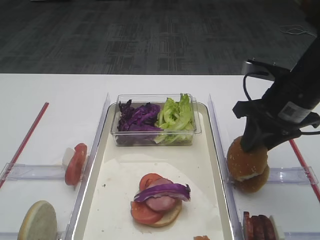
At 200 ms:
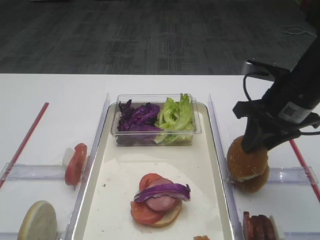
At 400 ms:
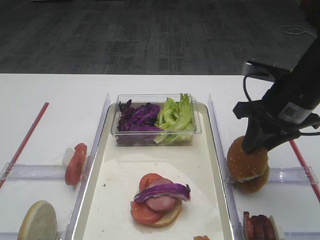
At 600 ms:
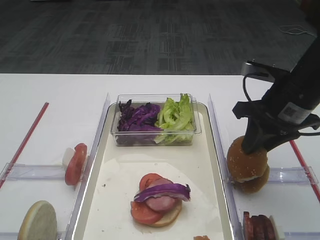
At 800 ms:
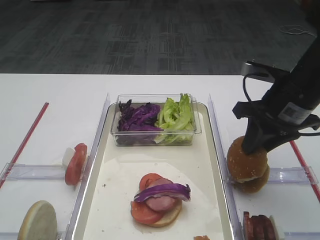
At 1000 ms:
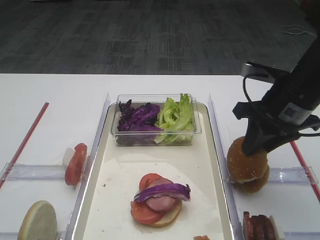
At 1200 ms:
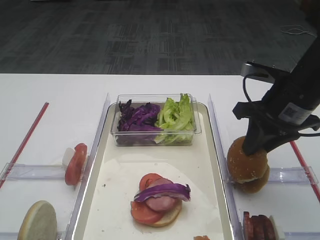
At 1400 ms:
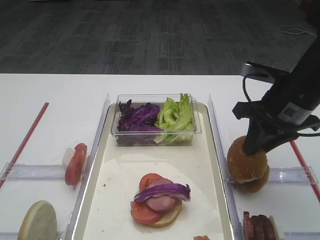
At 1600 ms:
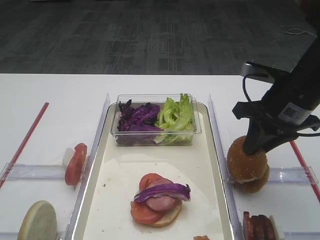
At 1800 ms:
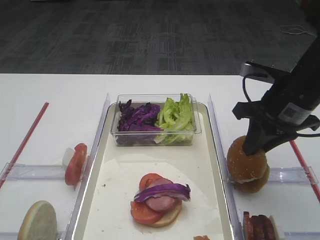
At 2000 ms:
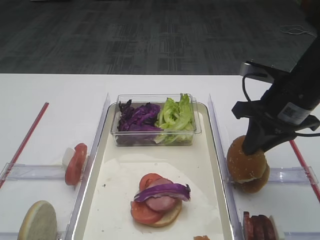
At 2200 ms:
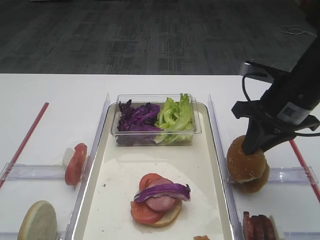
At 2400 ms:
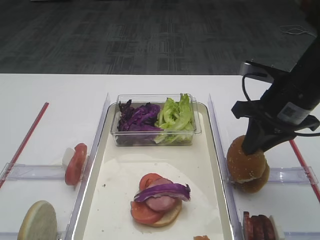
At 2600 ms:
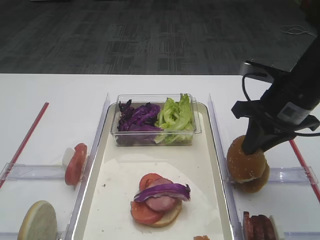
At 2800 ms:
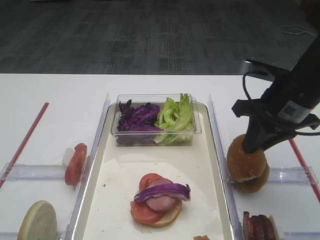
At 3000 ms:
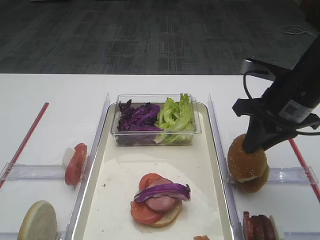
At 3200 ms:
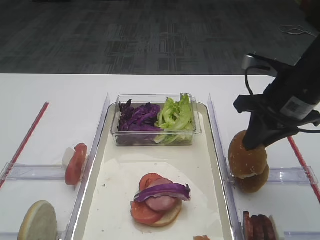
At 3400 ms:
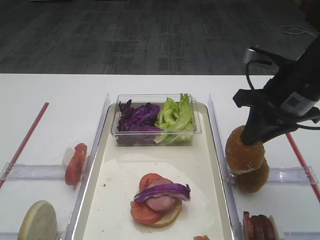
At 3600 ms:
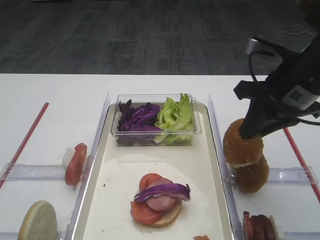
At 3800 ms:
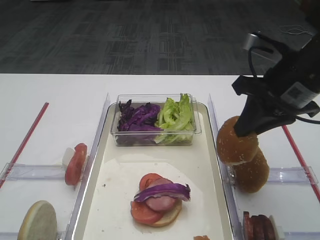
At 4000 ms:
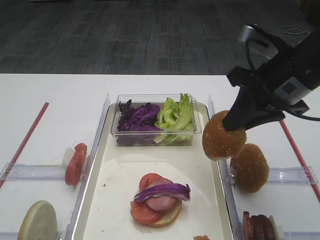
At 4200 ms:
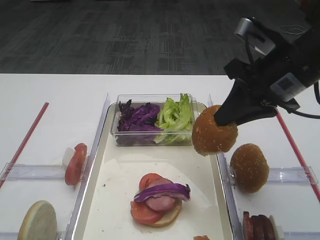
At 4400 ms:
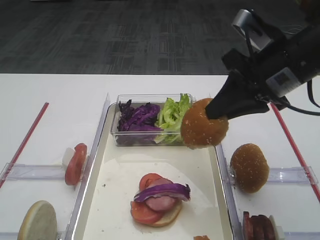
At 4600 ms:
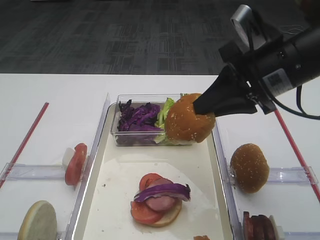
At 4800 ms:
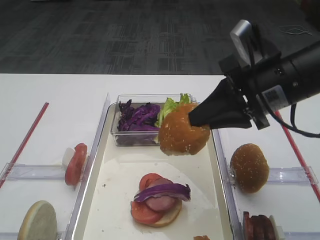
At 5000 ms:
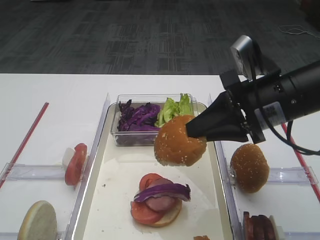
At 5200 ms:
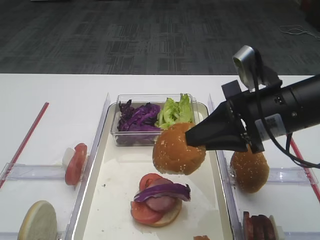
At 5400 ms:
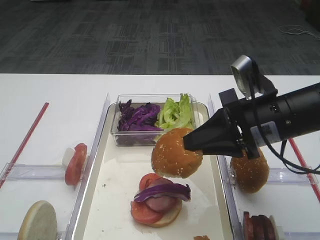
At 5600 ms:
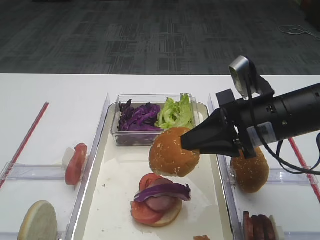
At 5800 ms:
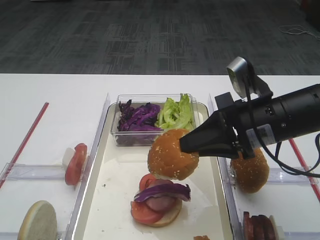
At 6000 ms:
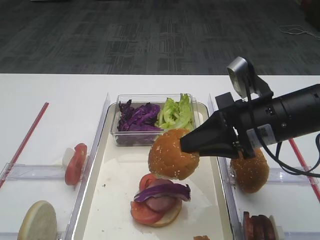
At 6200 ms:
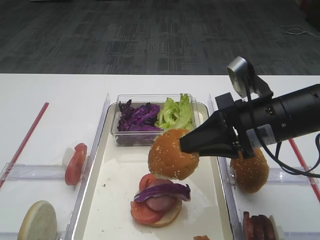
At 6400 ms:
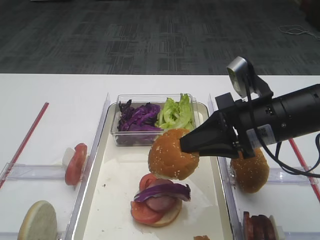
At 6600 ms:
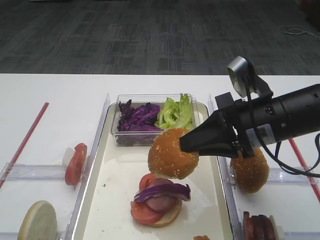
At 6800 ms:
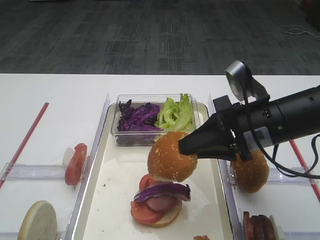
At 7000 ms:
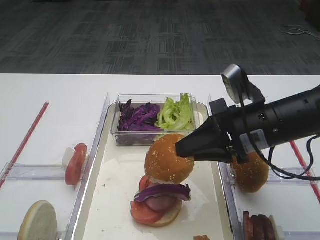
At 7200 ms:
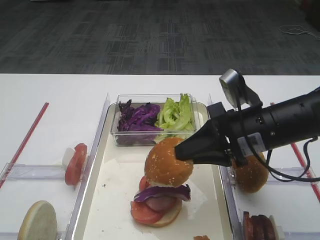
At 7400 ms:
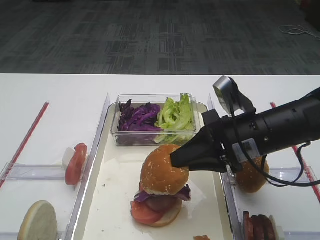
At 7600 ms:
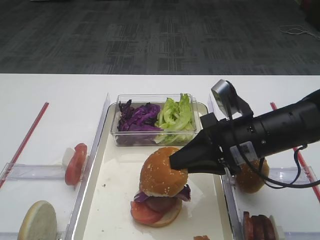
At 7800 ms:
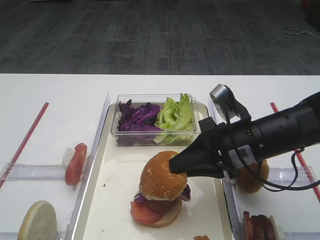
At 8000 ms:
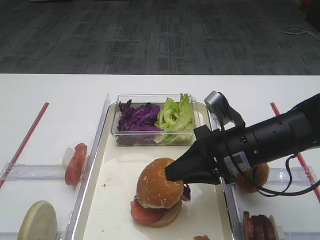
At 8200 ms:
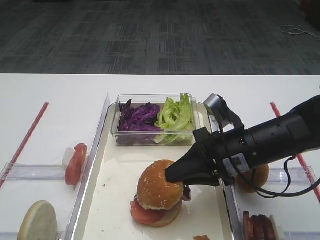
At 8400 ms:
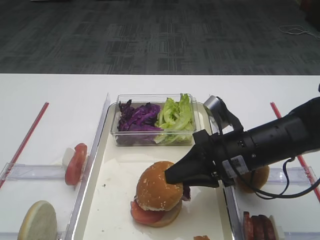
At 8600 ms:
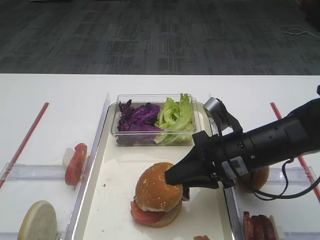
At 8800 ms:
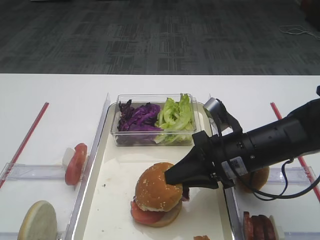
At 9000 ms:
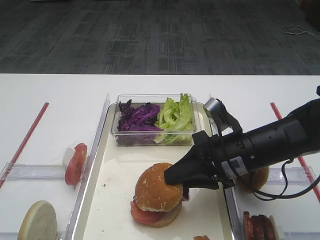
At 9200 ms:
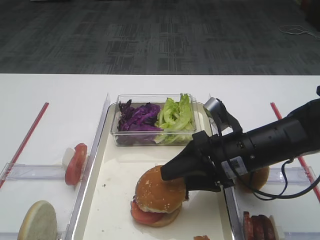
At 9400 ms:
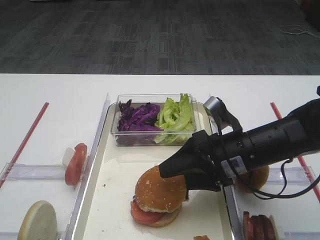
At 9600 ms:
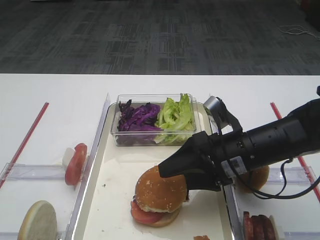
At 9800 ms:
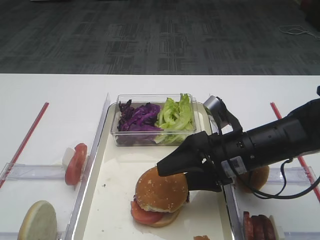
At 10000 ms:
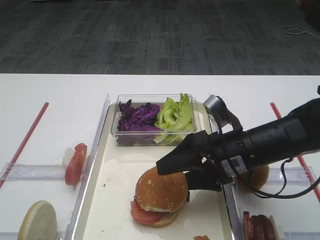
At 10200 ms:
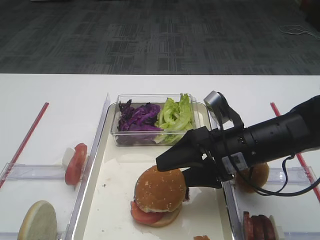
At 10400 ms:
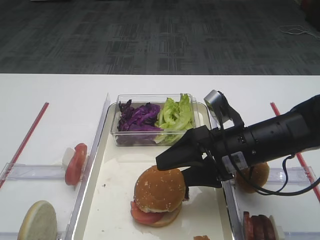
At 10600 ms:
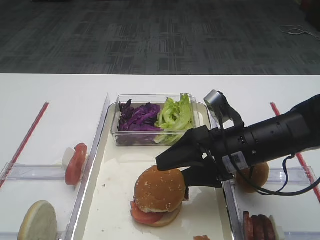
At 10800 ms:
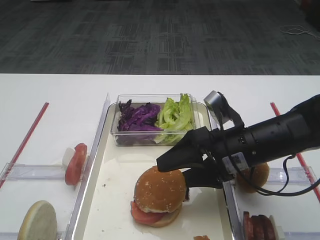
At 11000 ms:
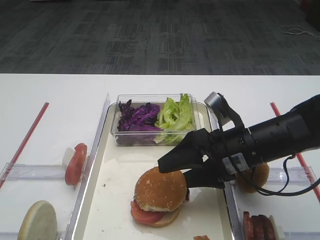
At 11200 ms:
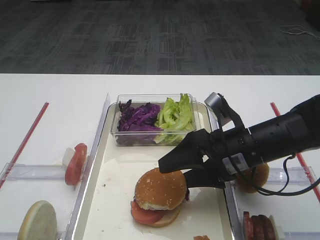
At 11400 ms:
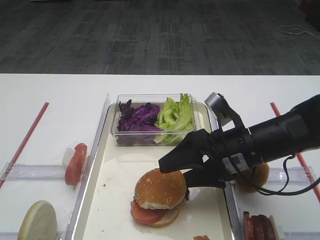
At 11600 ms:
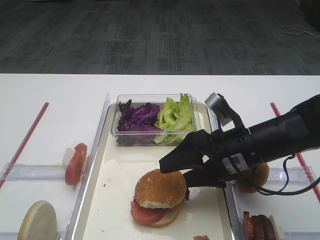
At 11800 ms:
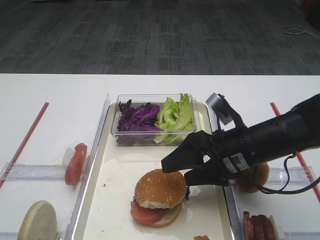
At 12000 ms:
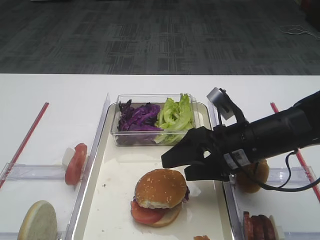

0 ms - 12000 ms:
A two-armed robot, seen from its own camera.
Step, 0 ms - 3600 ms: Pick up the hamburger lid with the right gripper.
Step, 3800 ms - 12000 ms: Place the hamburger lid on the purple cabbage with the right gripper.
0 ms - 3000 ms: Neither gripper changes place.
3000 ms - 4400 ms: The right gripper is displaced upward by approximately 5 cm.
4400 ms - 6000 ms: The right gripper moves downward, approximately 5 cm.
6000 ms - 7600 ms: The grippers move only a little.
7600 ms - 9000 ms: The grippers move only a little.
9000 ms - 10400 ms: The right gripper opens up.
10400 ms - 12000 ms: There are only small adjustments of the grippers.

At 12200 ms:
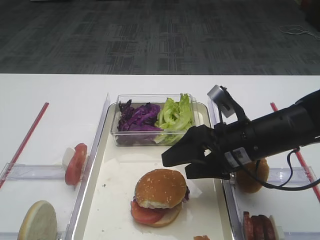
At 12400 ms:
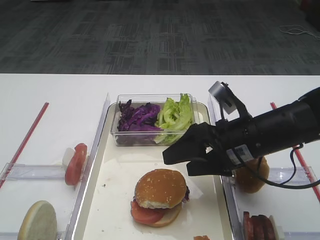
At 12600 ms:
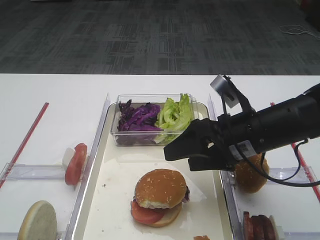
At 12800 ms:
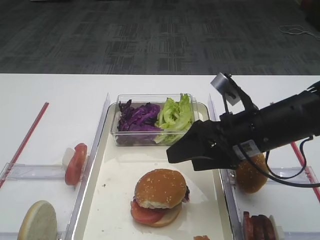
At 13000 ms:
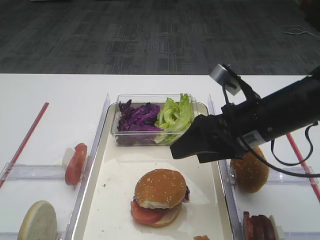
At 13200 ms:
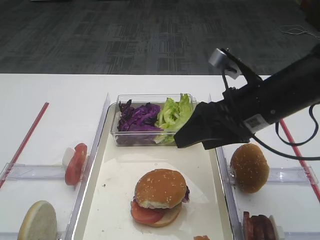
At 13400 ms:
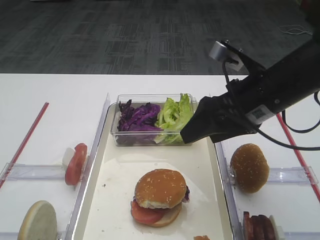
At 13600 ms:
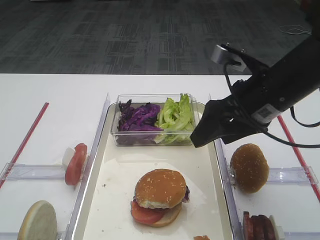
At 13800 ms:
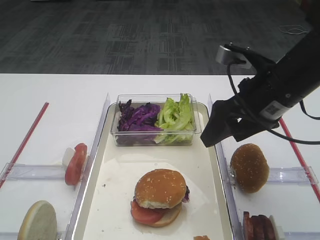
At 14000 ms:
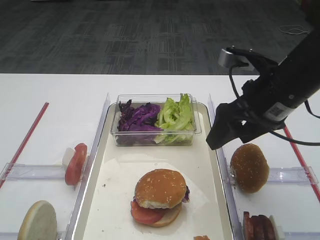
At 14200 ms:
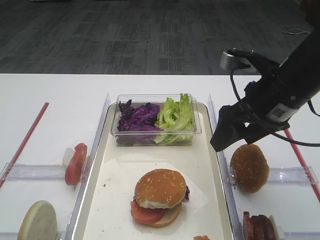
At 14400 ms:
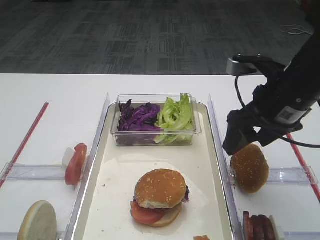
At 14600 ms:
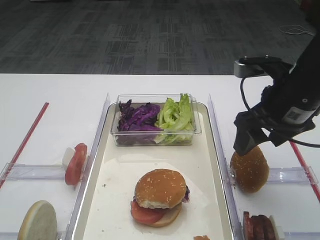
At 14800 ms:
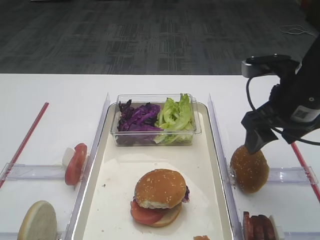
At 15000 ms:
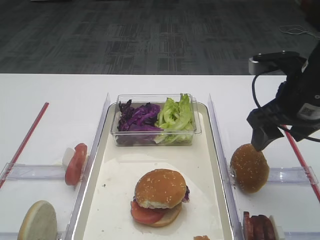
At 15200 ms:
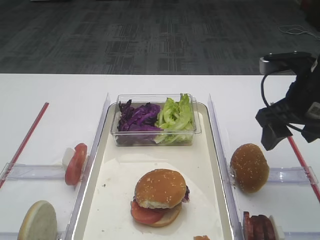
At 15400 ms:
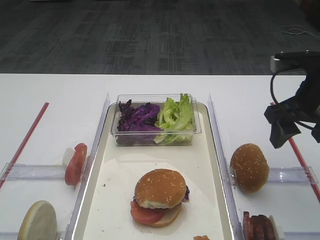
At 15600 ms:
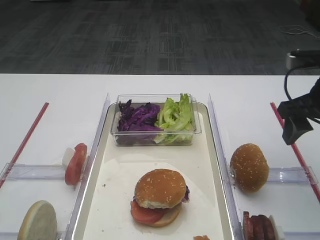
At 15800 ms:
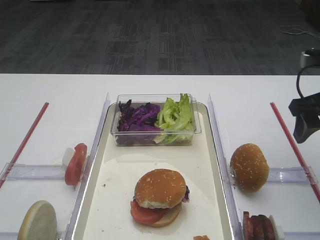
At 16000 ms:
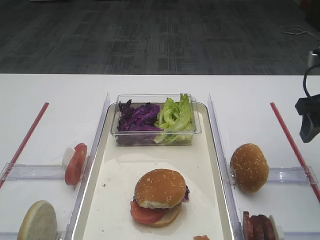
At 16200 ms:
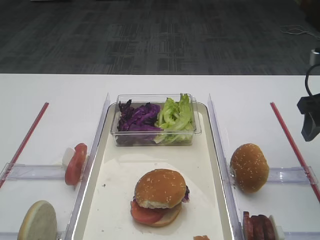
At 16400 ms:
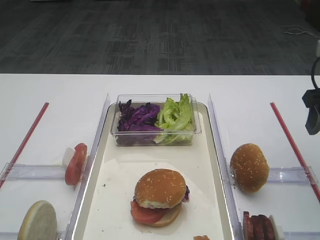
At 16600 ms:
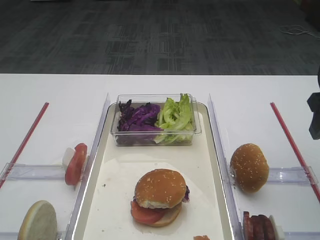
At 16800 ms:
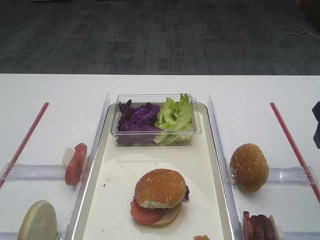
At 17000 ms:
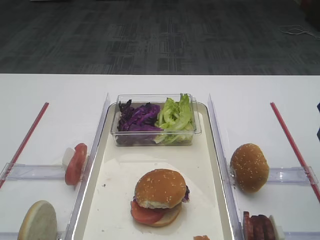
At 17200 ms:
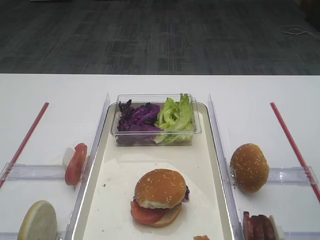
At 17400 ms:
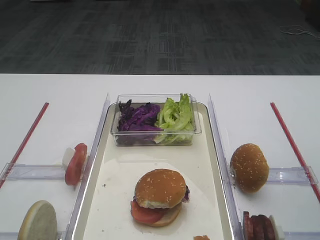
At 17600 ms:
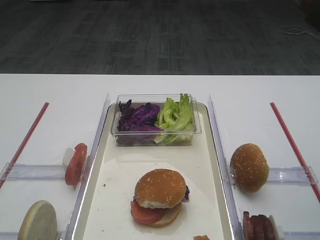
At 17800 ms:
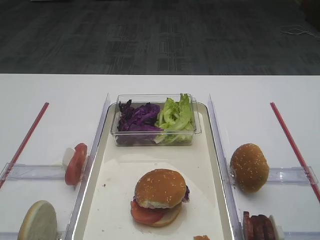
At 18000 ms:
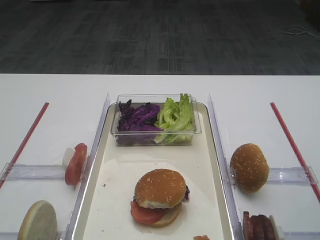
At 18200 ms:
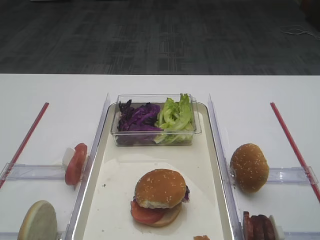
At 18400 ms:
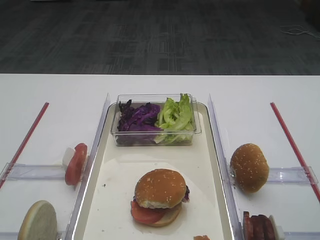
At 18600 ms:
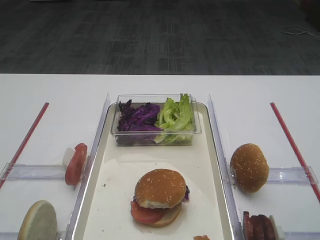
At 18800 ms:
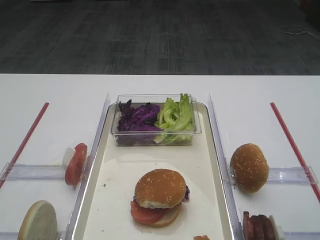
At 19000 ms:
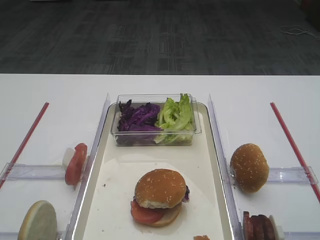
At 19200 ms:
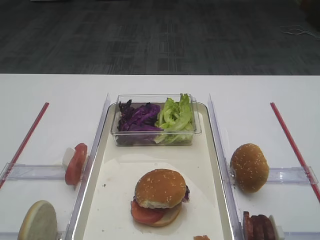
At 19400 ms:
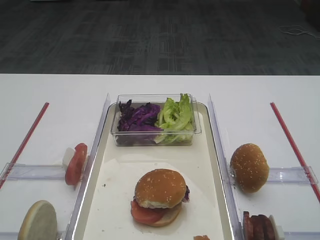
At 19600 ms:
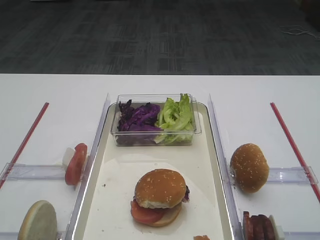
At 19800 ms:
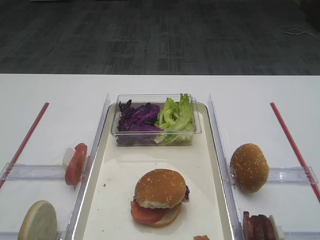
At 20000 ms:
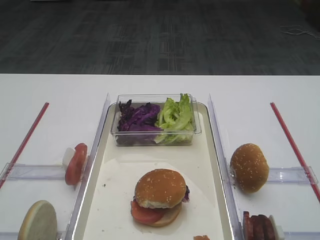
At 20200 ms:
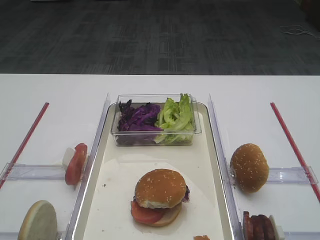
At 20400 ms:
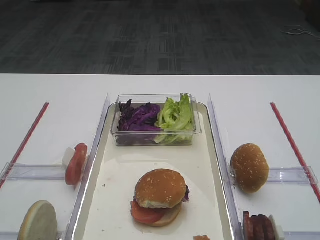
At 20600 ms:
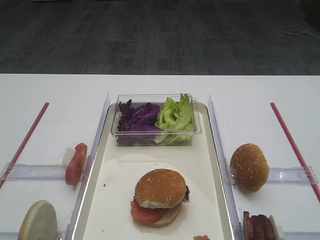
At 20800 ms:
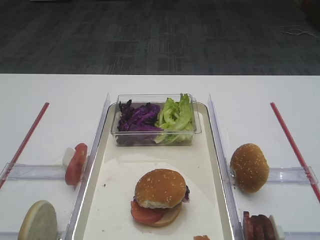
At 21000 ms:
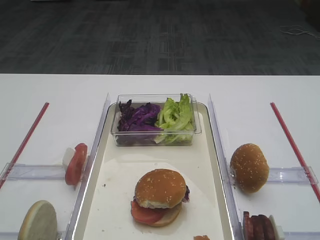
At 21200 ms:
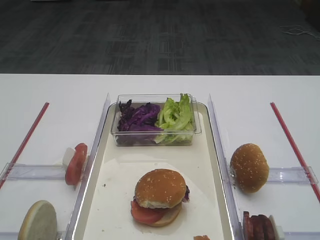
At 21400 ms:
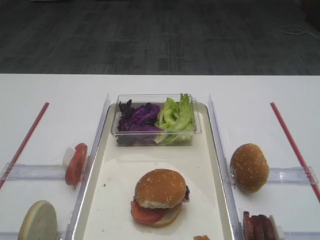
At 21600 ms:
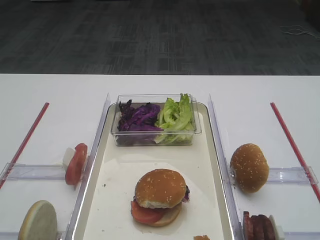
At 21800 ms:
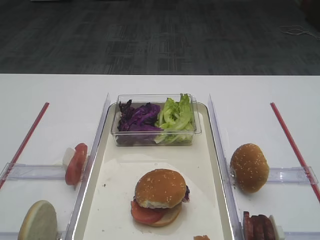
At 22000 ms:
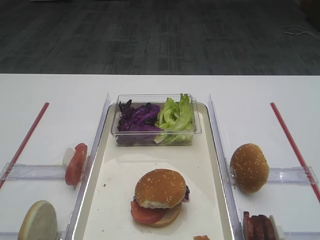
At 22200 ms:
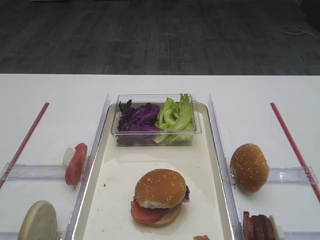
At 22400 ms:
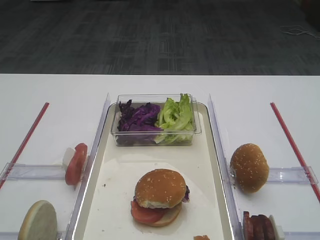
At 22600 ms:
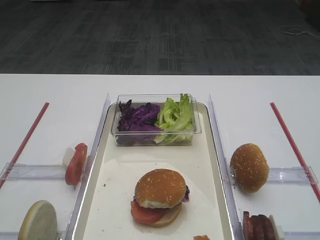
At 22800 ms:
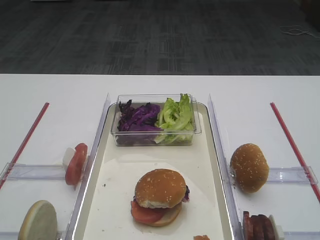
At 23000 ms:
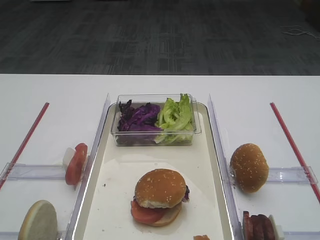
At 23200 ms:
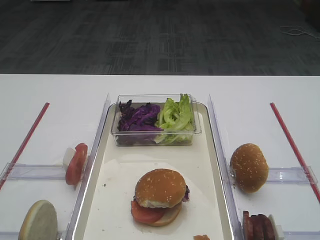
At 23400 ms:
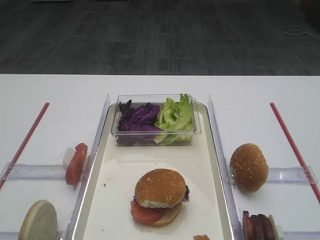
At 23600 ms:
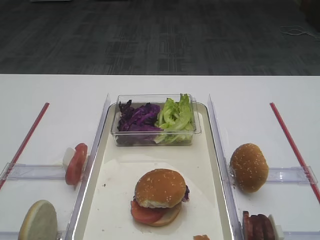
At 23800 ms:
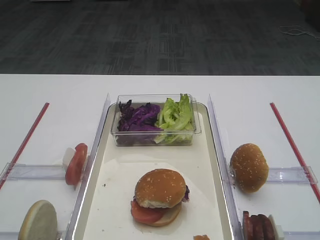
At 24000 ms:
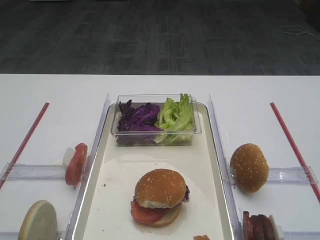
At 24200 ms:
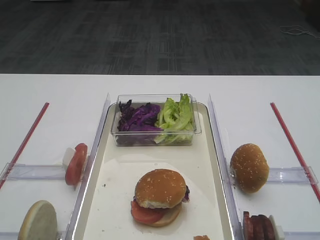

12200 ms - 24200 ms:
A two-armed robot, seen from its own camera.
12200 ms - 13800 ms: The right gripper travels upward by approximately 10 cm.
13800 ms - 15200 ms: The right gripper goes some 5 cm to the right.
15200 ms - 16600 ms: The right gripper moves to the right, roughly 5 cm.
16600 ms - 18200 ms: The right gripper goes some 10 cm backward.
22600 ms - 24200 ms: Both grippers stay put.
